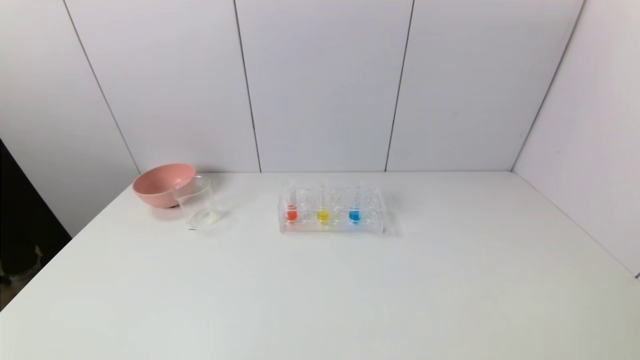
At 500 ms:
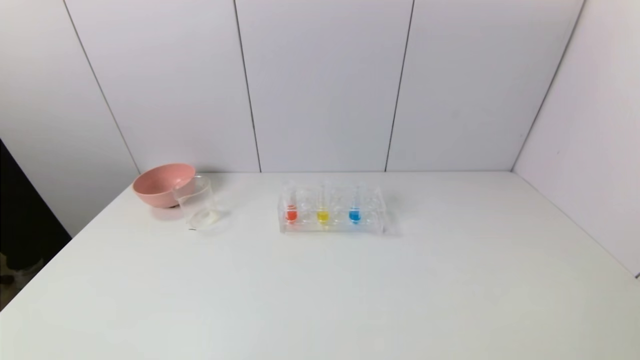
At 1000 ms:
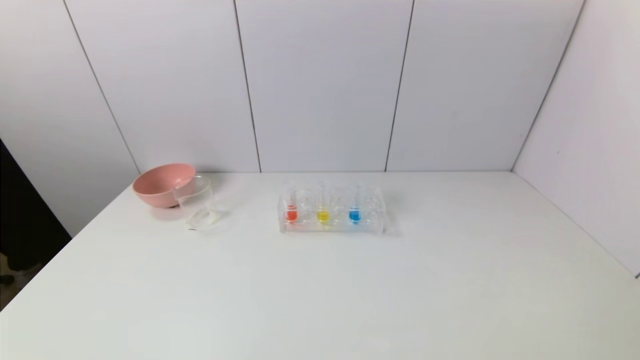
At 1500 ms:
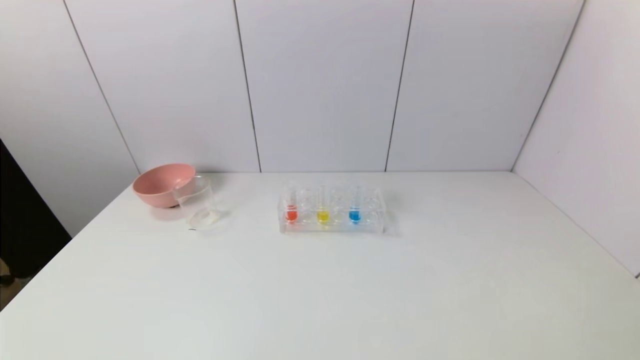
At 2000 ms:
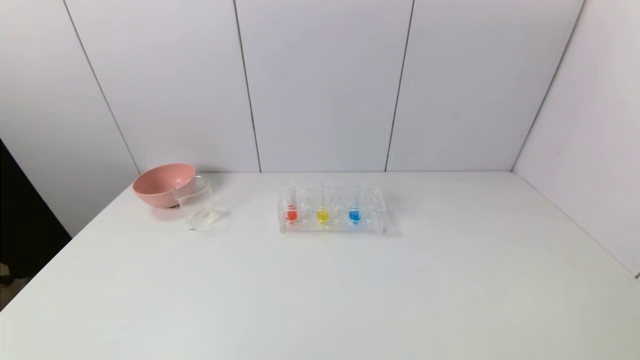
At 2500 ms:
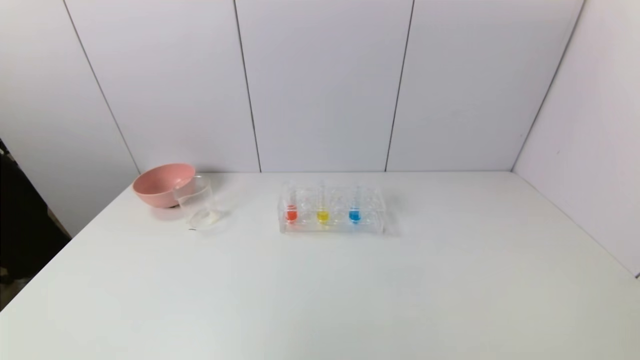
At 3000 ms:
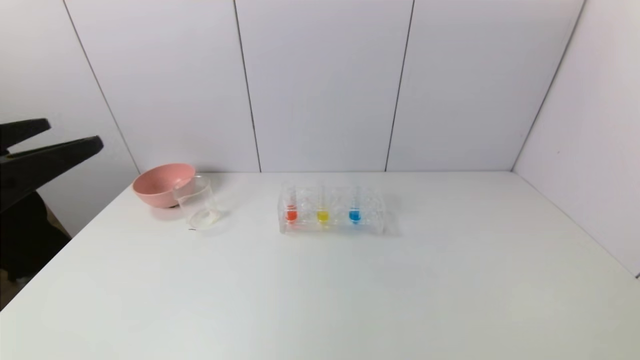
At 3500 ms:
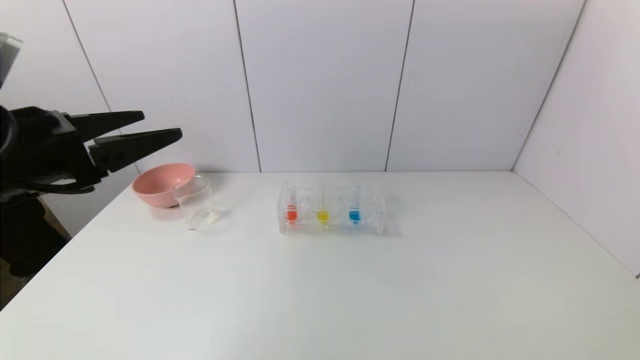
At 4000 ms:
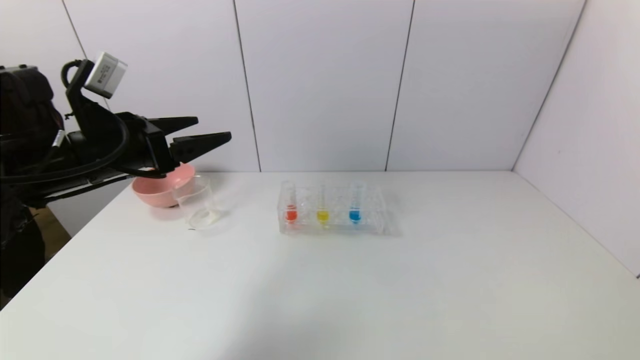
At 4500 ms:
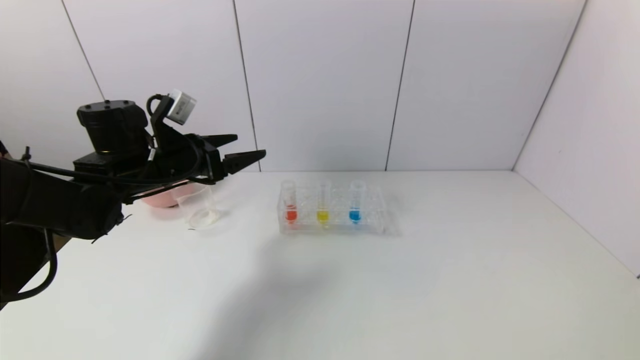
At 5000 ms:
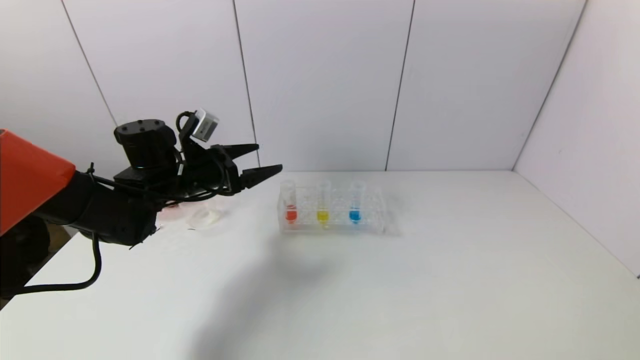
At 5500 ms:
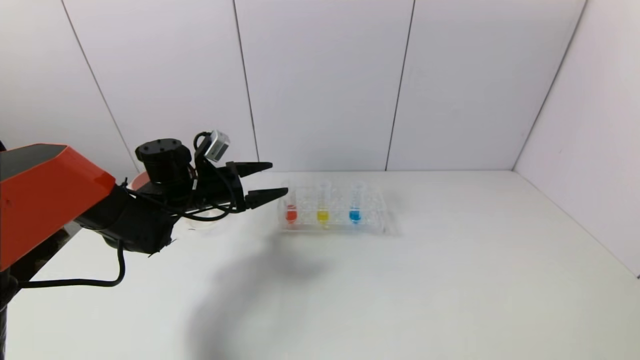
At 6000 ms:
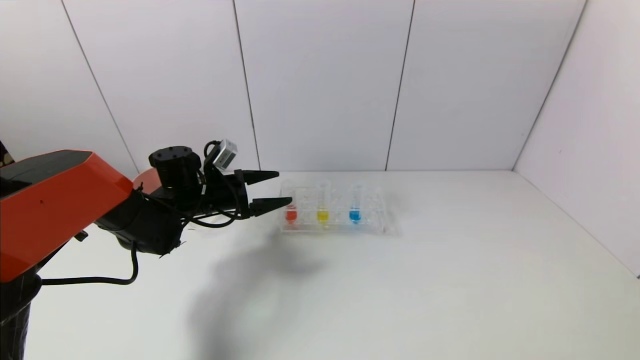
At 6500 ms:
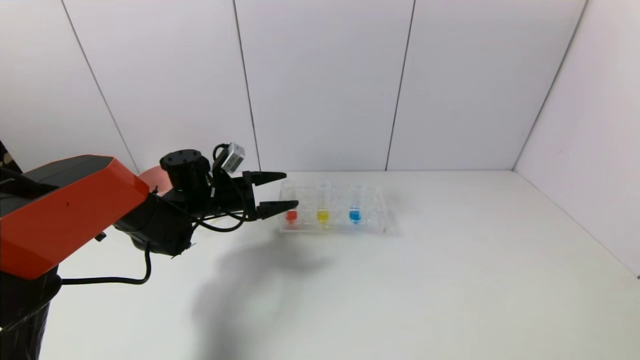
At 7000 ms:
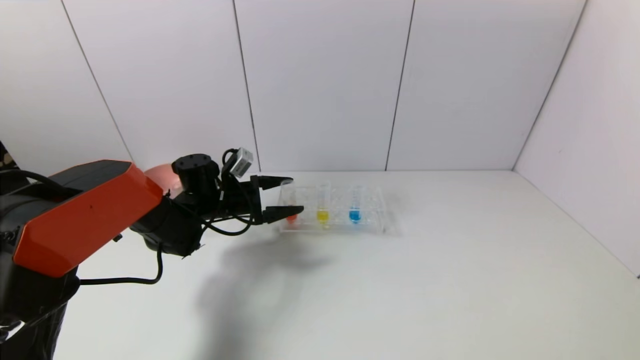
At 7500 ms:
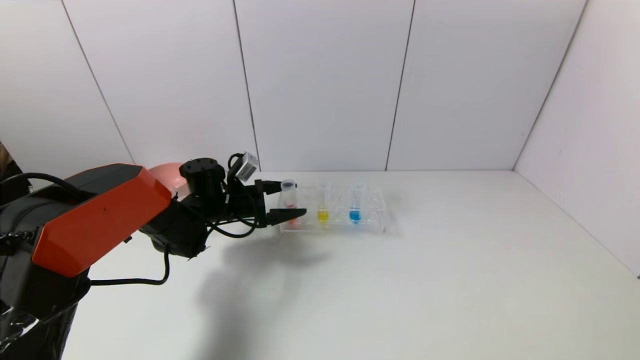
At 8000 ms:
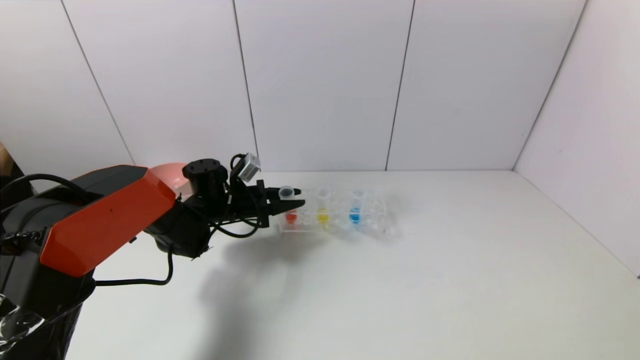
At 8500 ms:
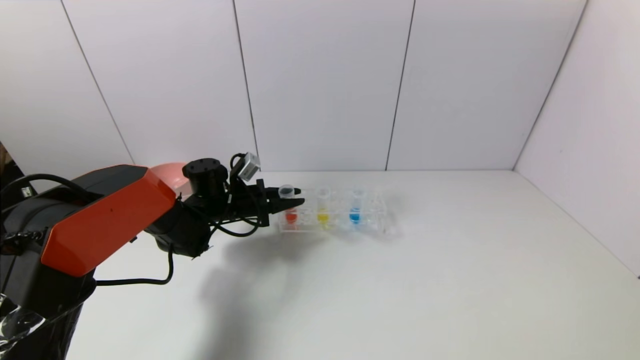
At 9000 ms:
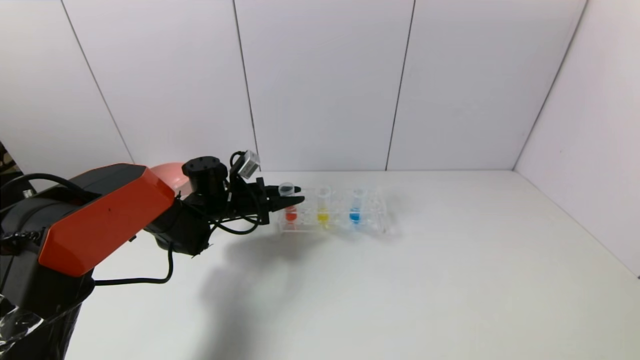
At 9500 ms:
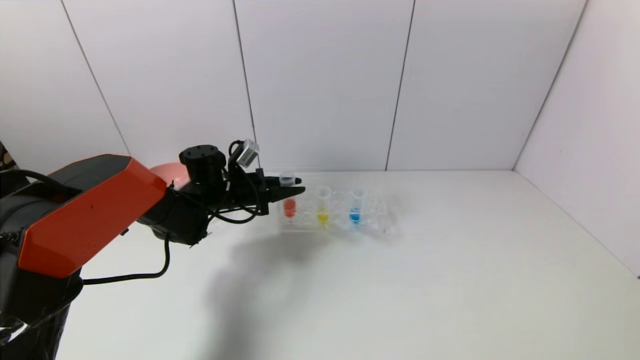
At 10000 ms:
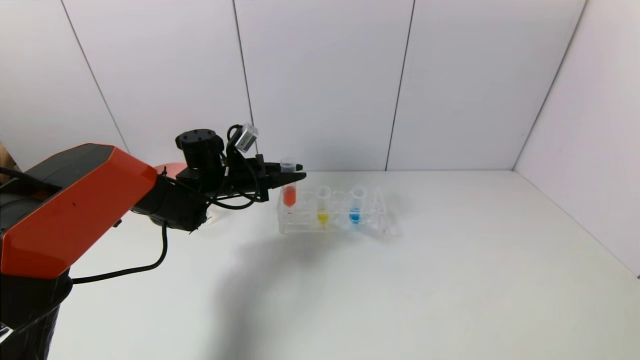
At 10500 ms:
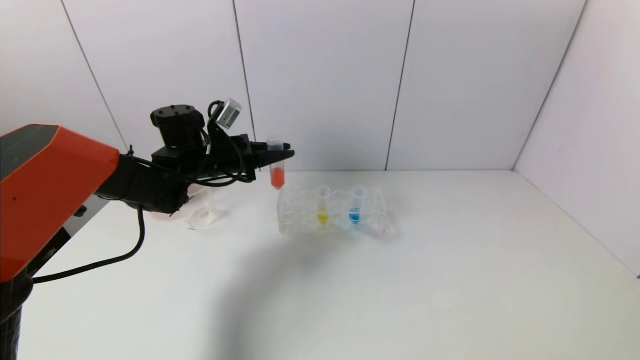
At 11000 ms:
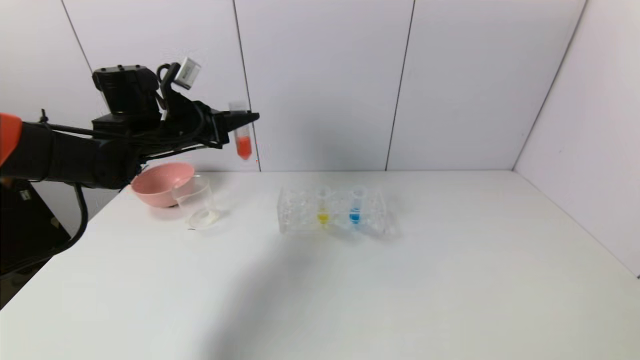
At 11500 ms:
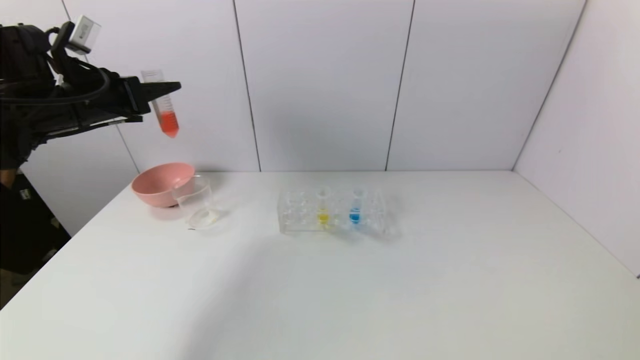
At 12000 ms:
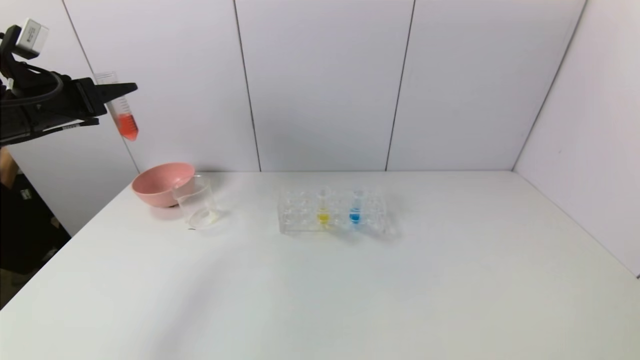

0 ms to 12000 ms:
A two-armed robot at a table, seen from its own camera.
Task of the whole recording: pick up the test tube with yellow pigment and the test tube with red pigment by grippers and pour them into the beaker.
Step, 0 ms to 8000 ms: Grasp the red reagent with the left gripper.
2000 ms to 4000 ms: The left gripper shifts approximately 30 cm forward.
4000 ms to 6000 ms: The left gripper heads downward and forward, covering approximately 20 cm.
6000 ms to 8000 ms: The left gripper moves about 5 cm, and closes its fingers.
8000 ms to 10000 ms: The left gripper heads upward, covering some 5 cm.
10000 ms to 12000 ms: The left gripper moves to the left, upward and backward, approximately 25 cm.

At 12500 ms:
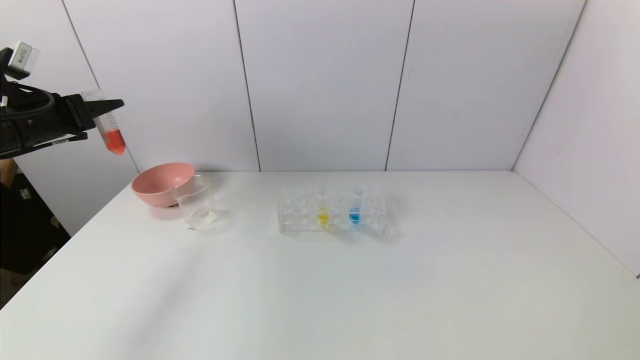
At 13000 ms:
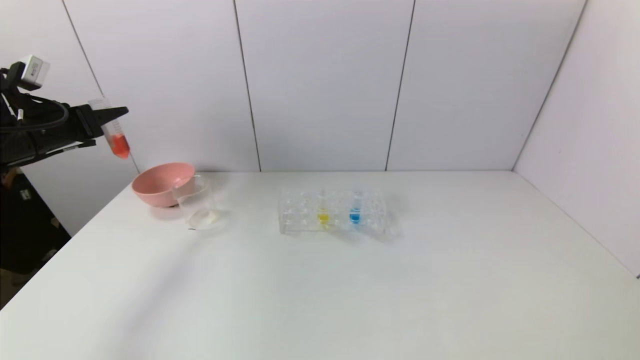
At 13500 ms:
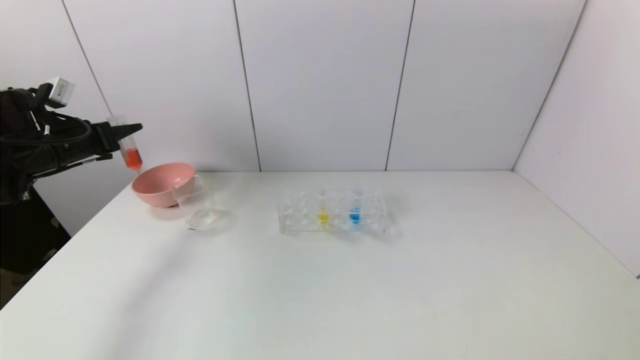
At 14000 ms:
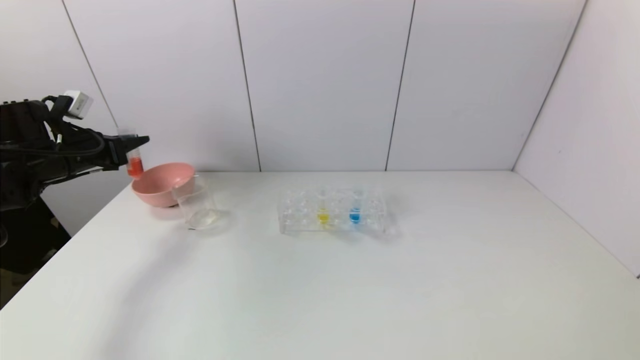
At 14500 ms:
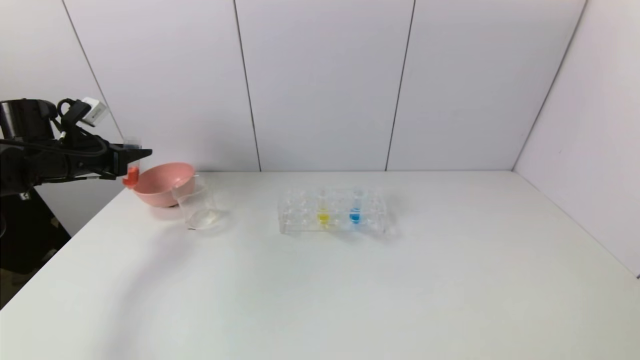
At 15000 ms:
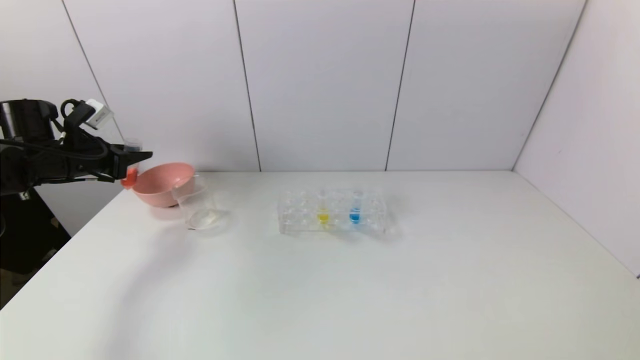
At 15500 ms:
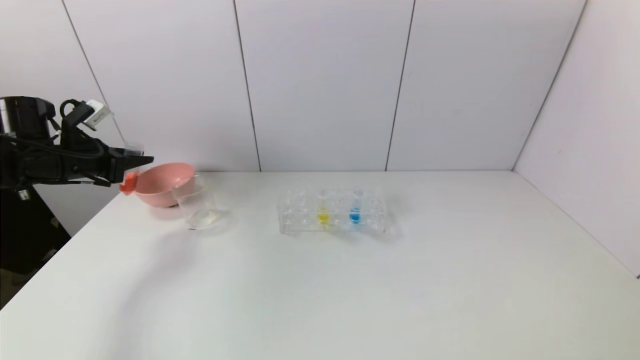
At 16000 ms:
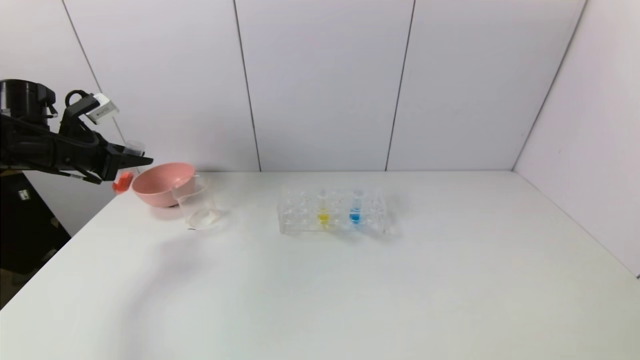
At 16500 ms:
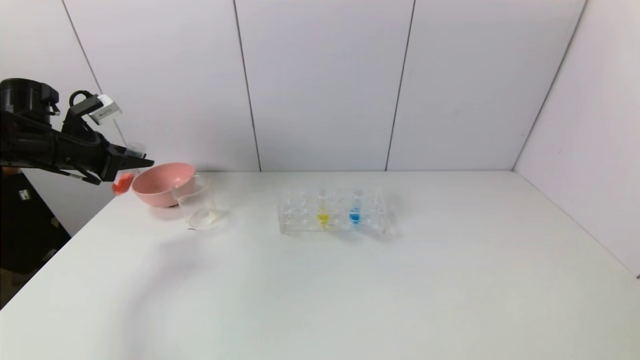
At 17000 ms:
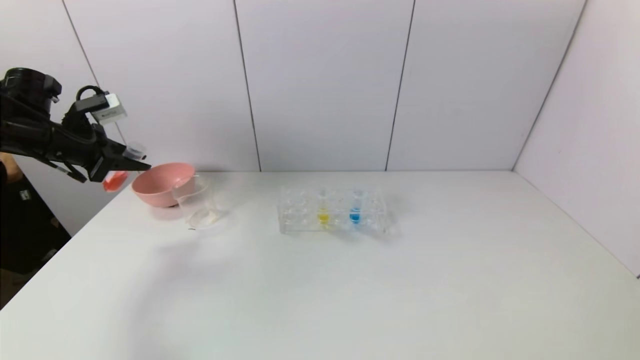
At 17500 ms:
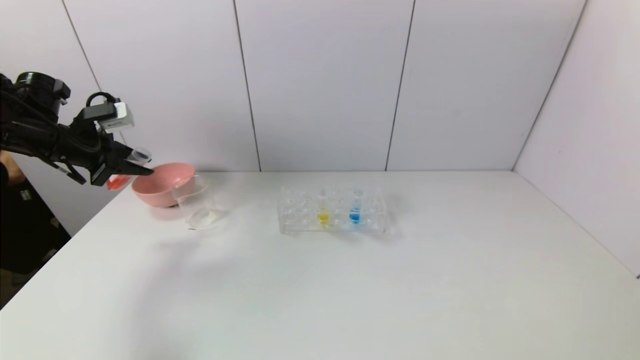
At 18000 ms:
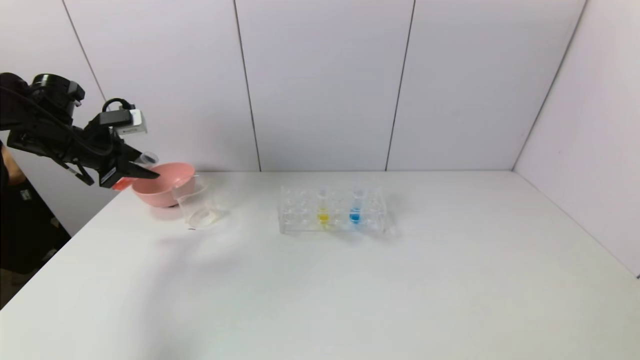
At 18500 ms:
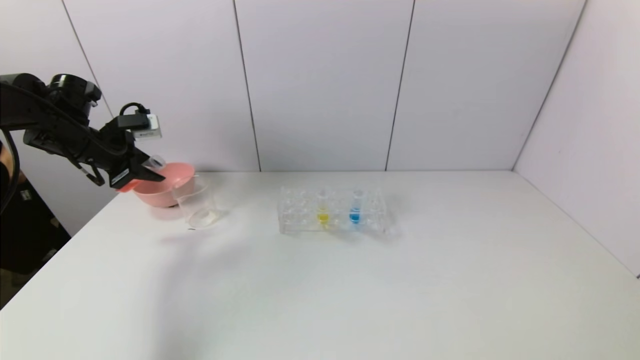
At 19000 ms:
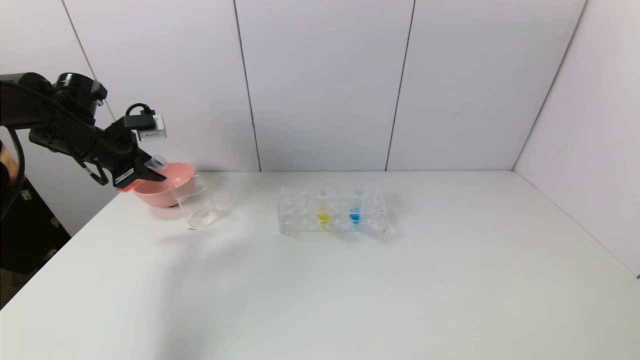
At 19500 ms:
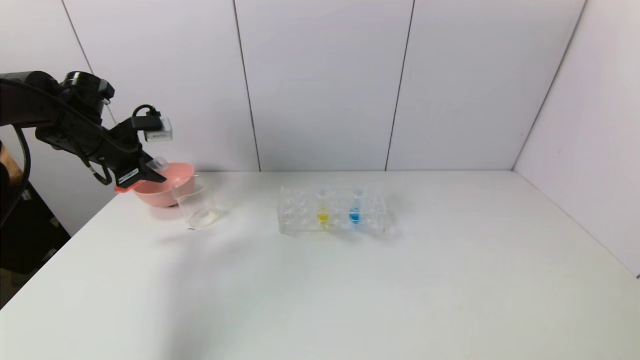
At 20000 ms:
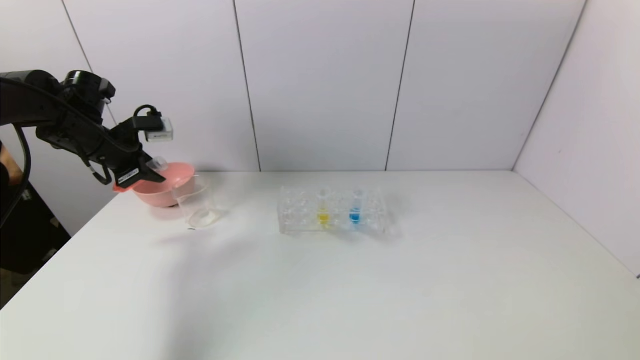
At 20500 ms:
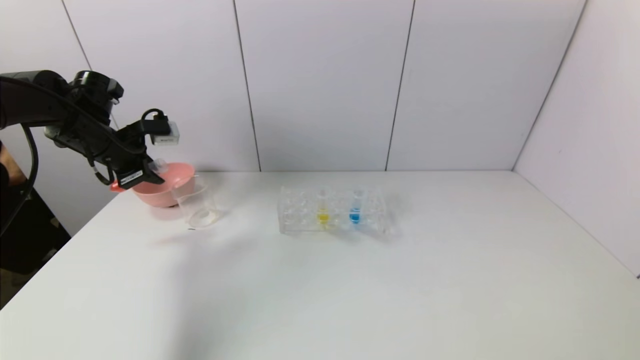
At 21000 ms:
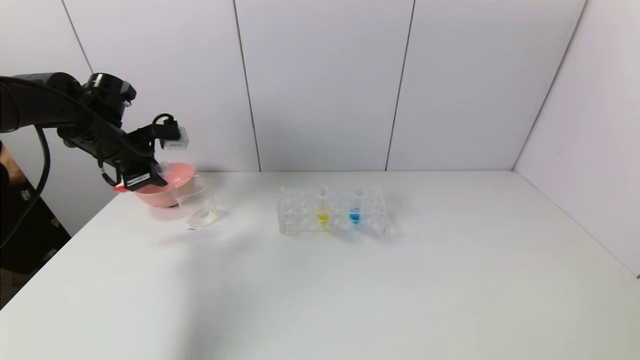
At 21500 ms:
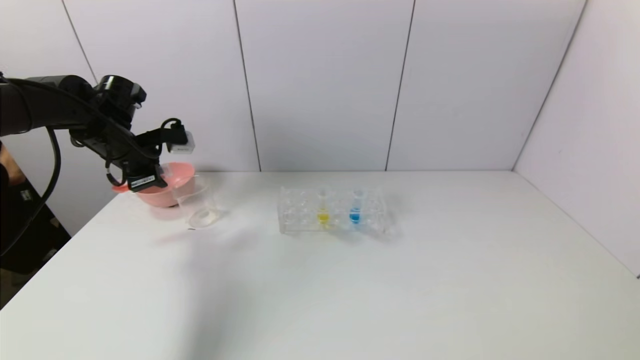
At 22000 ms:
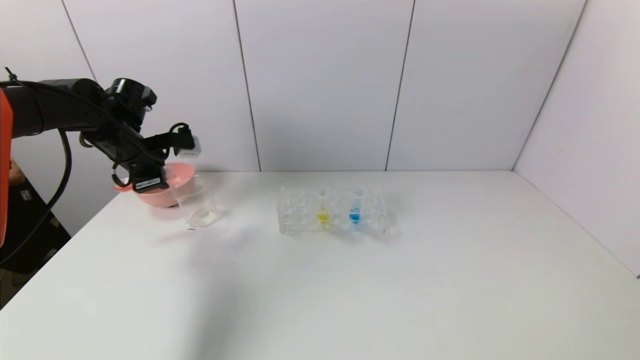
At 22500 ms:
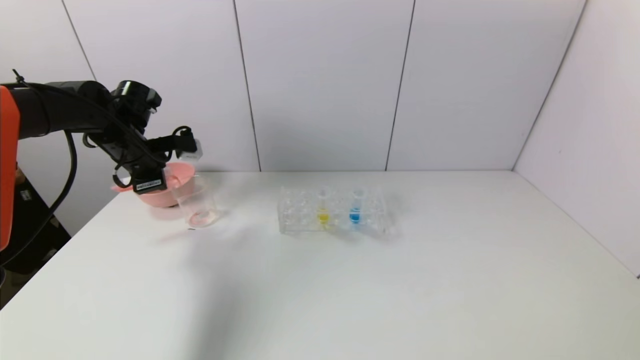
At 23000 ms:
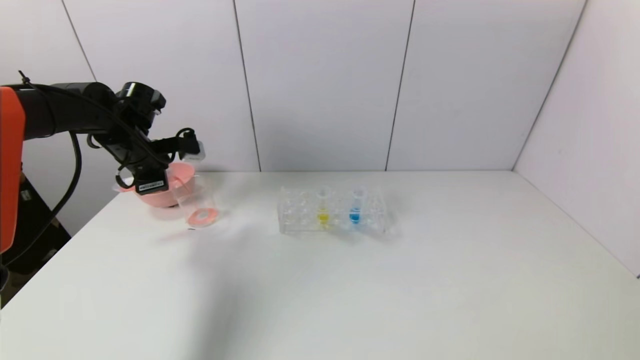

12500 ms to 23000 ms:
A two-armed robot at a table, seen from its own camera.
Task of the whole recording: pick up the test tube with yellow pigment and the test tube with red pigment by grippers and pour them into the beaker.
12500 ms to 14500 ms: The left gripper moves downward and forward, about 10 cm.
14500 ms to 16500 ms: There are only small adjustments of the grippers.
19000 ms to 21000 ms: The grippers move only a little.
21000 ms to 23000 ms: The grippers stay close to where they were, moving slightly.
